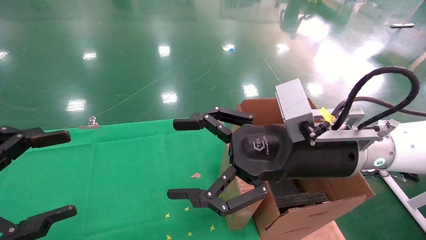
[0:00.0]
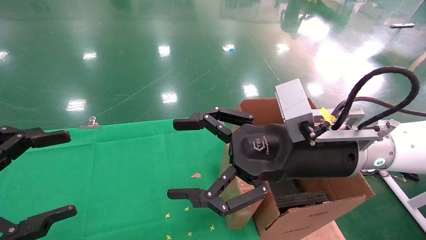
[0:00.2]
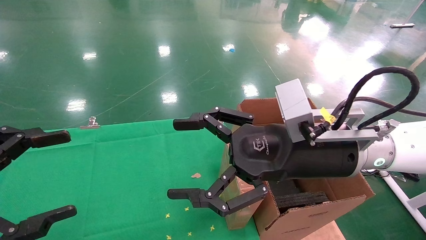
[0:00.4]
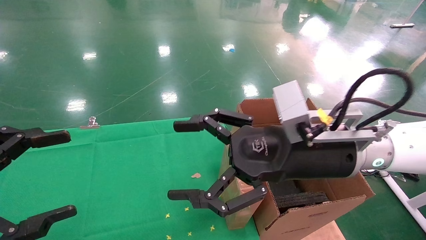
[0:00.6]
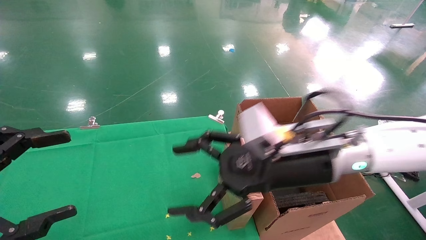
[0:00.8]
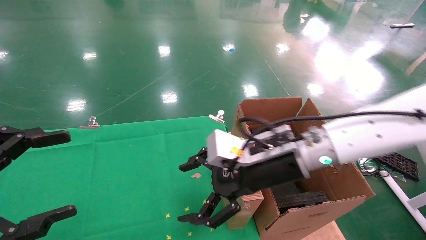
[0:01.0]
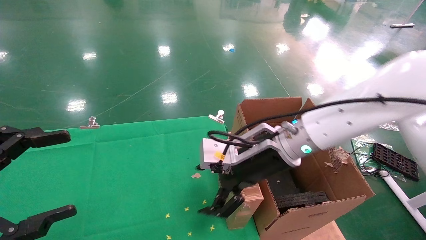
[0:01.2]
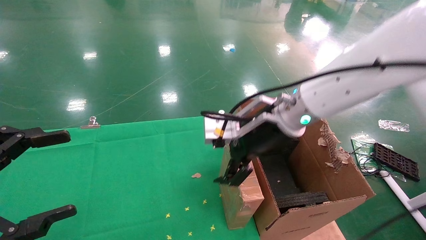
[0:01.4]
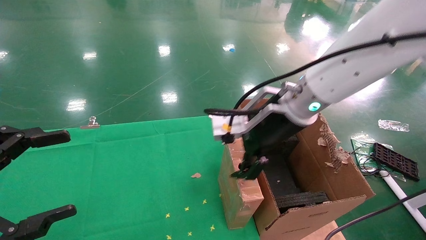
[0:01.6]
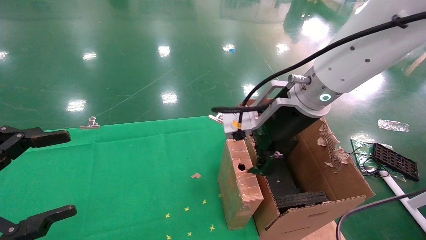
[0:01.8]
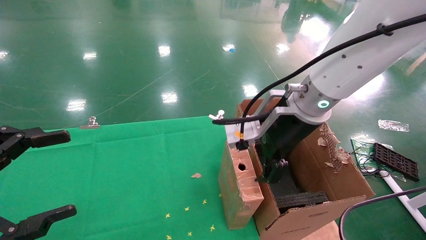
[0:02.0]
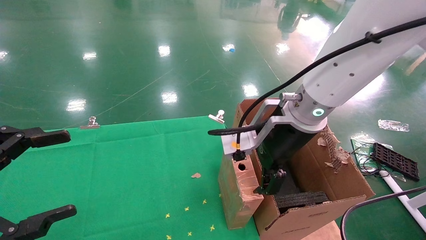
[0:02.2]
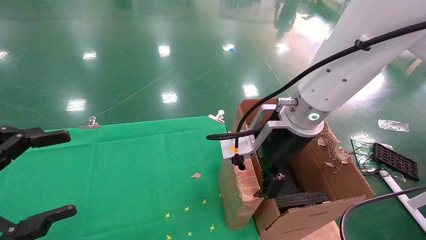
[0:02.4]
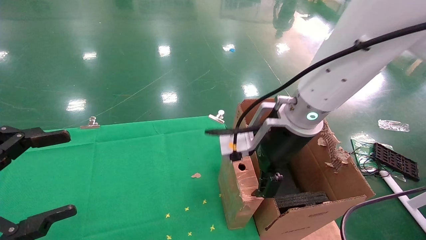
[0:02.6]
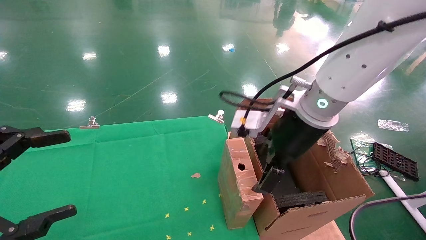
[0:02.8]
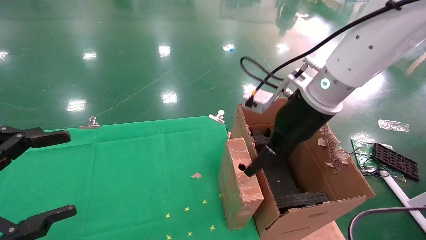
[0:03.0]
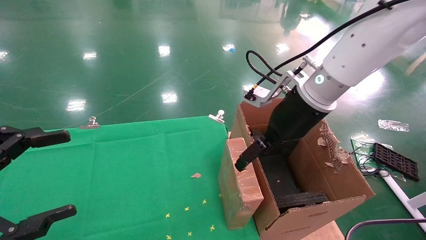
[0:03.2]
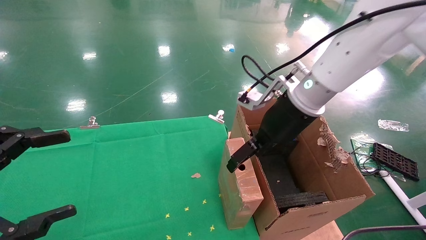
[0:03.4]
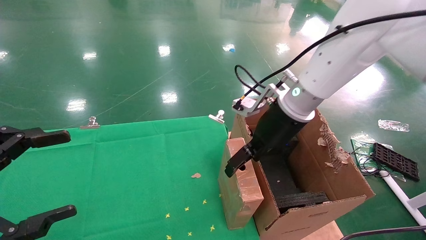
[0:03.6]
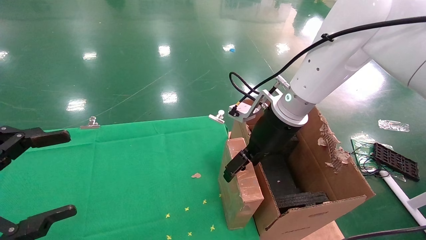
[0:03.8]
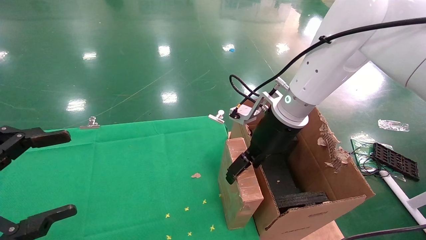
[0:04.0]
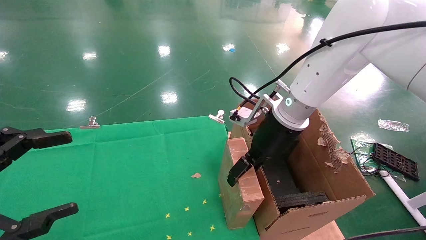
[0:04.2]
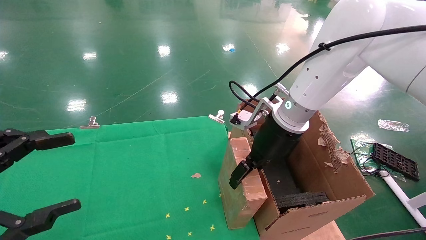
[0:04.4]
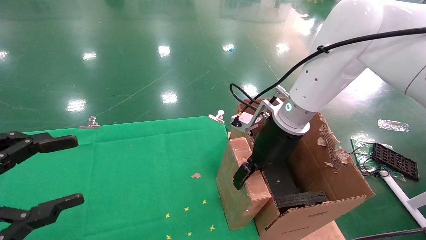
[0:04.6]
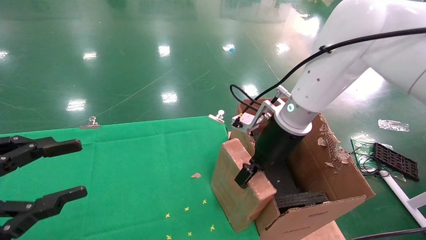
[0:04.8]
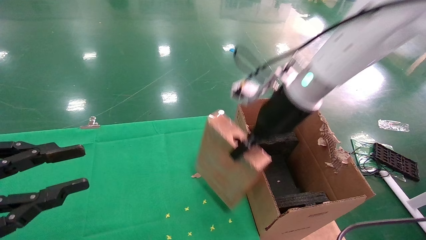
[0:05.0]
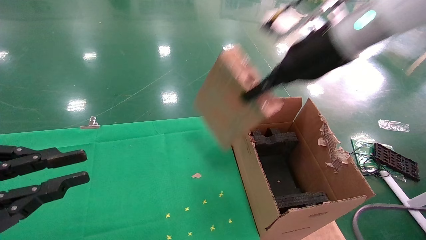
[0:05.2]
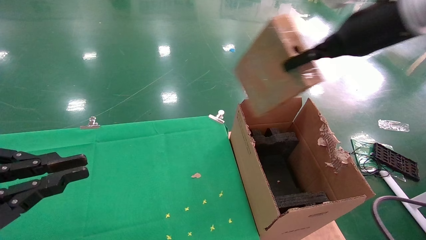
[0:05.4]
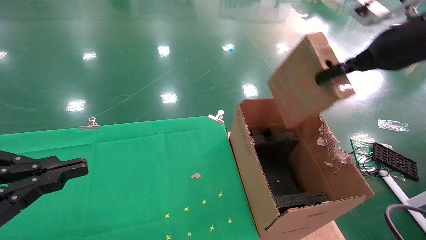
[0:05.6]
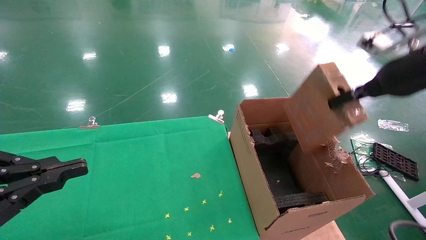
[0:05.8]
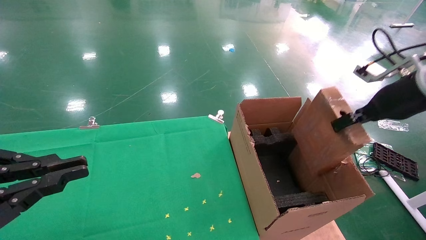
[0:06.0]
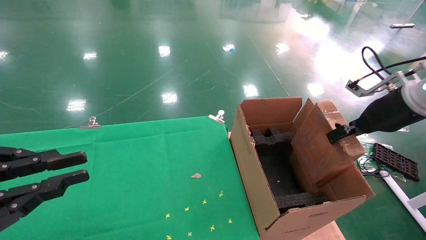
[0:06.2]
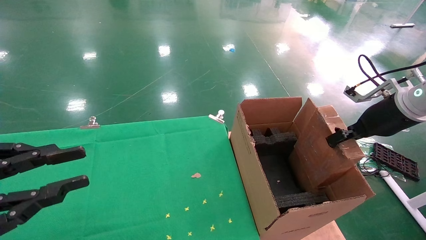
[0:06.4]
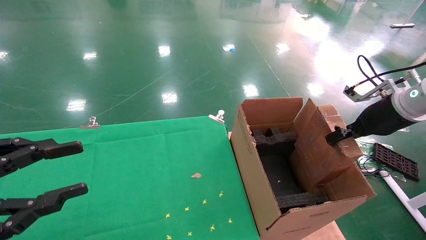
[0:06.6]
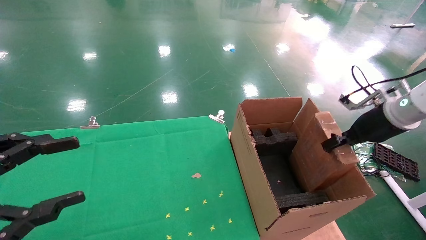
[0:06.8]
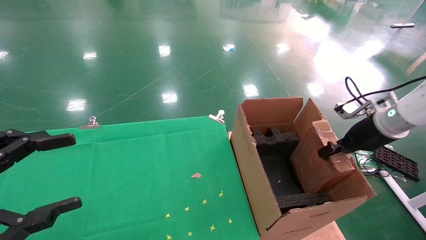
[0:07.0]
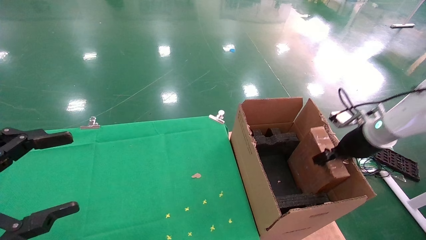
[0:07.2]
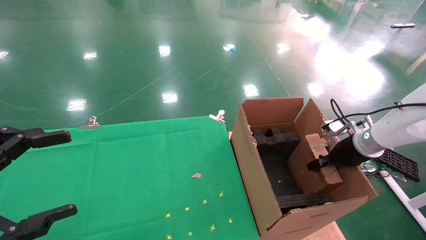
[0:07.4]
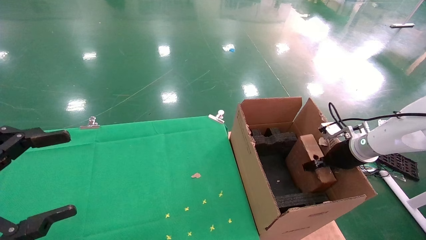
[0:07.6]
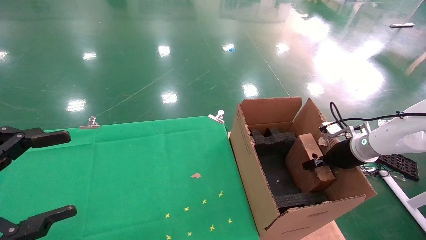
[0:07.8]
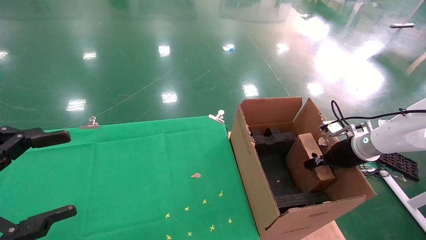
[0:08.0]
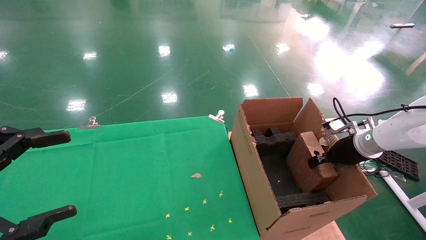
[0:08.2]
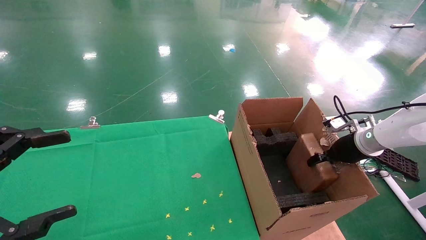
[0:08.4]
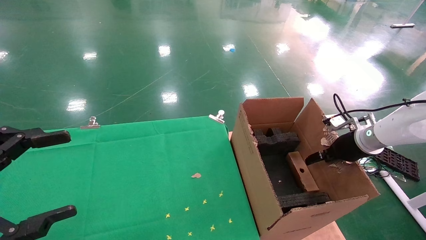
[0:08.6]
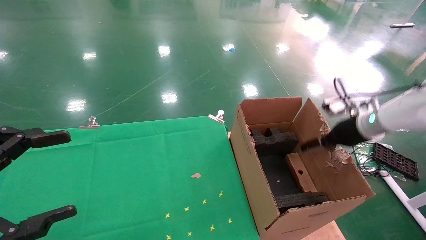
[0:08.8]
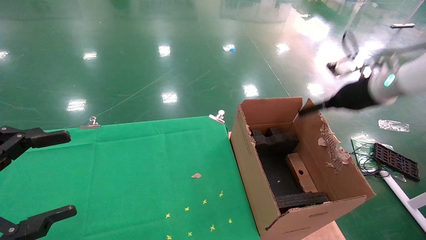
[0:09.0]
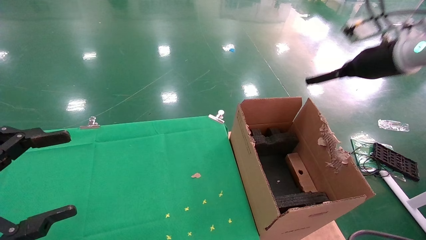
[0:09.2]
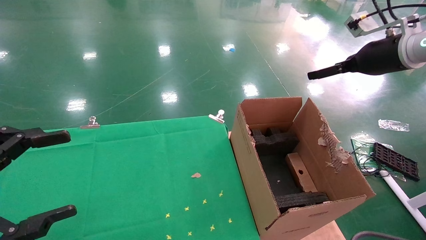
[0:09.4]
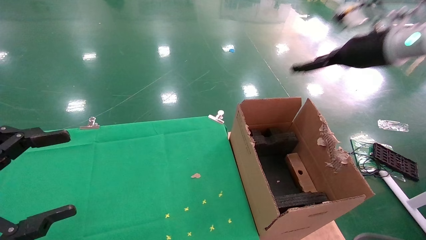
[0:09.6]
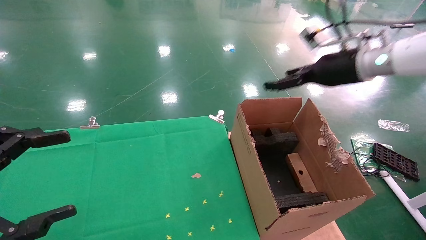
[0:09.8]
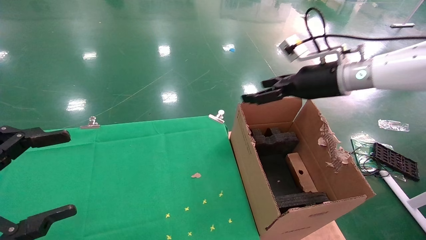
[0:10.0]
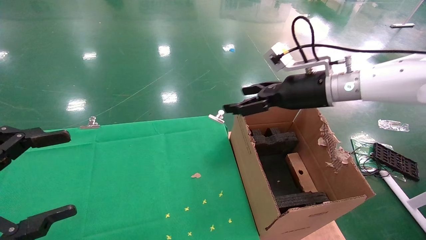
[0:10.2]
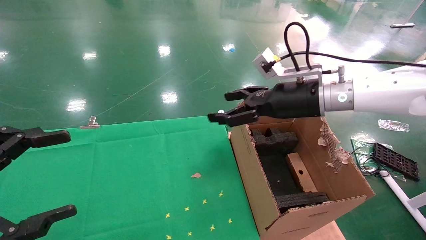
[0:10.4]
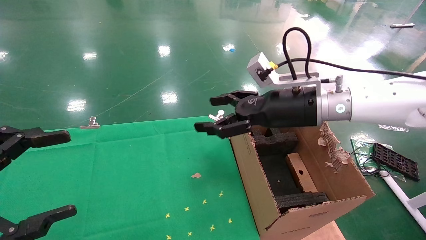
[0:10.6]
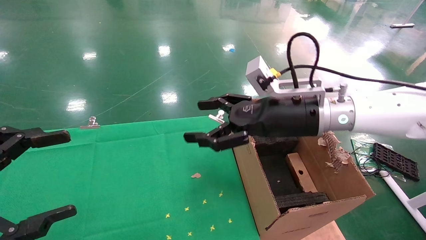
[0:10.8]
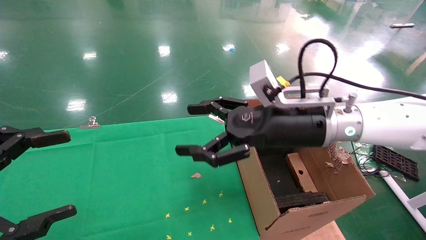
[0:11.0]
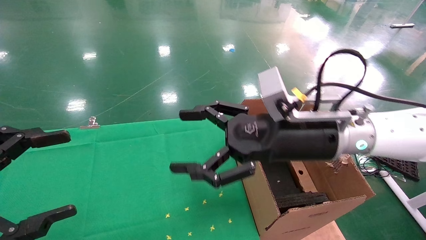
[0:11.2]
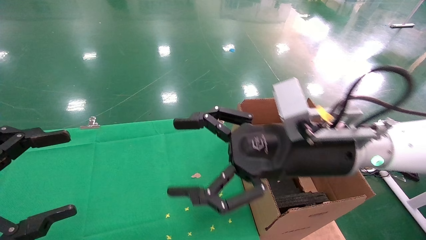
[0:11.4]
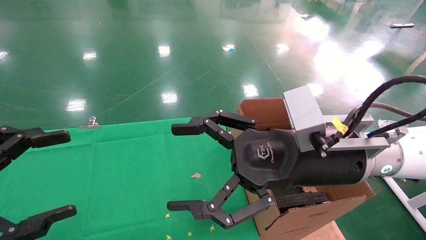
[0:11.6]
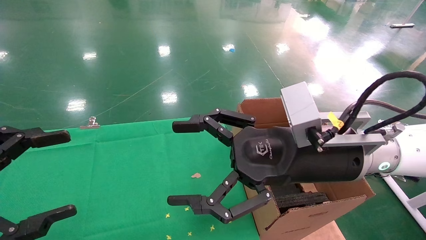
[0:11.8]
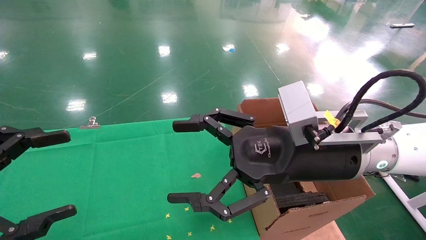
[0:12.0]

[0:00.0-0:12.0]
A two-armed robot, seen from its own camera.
Task of the whole recording: using a robotic arm to pick up a cardboard box and palace it the carton.
Step, 0:01.0 to 0:04.8: Pick up the mouse and the power cord paper box.
Step, 0:05.0 to 0:09.4: Place the mouse and the power cord paper box into the container.
0:00.0 to 0:01.6: The right gripper travels forward by approximately 10 cm.
0:03.0 to 0:04.4: The right gripper travels downward by roughly 5 cm.
0:04.4 to 0:06.0: The left gripper closes its fingers. The right gripper shifts approximately 25 cm to the right, and closes up.
0:06.0 to 0:07.6: The left gripper opens, while the right gripper travels downward and forward by approximately 20 cm.
0:07.6 to 0:09.0: The right gripper moves upward, about 15 cm, and opens.
0:09.0 to 0:10.4: The right gripper travels to the left by about 20 cm.
0:10.4 to 0:12.0: The right gripper heads backward and to the left, covering approximately 15 cm.

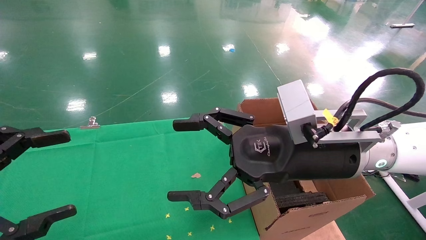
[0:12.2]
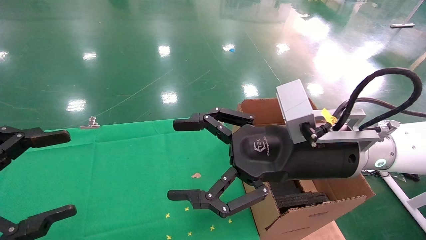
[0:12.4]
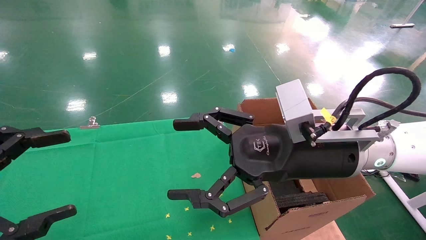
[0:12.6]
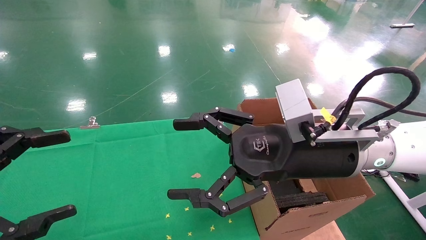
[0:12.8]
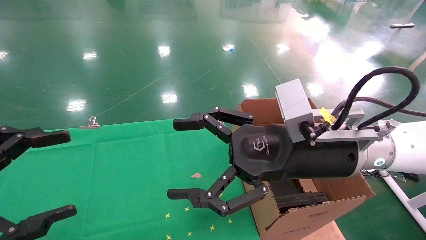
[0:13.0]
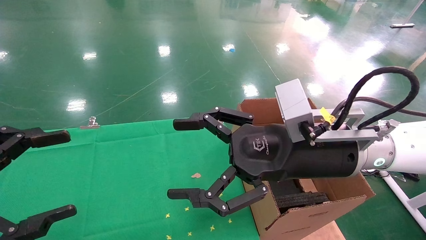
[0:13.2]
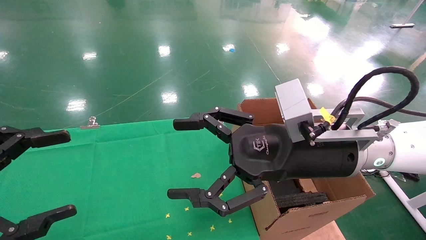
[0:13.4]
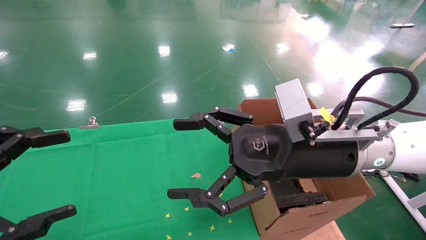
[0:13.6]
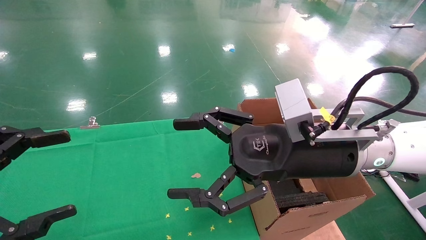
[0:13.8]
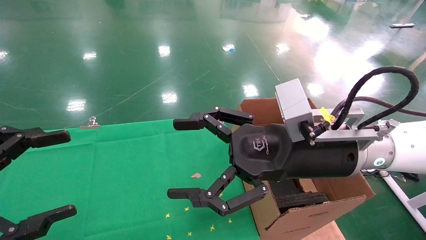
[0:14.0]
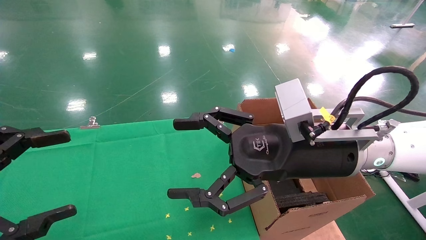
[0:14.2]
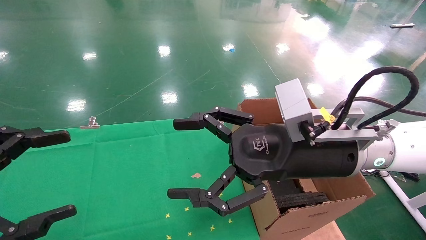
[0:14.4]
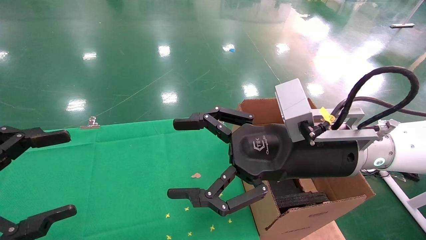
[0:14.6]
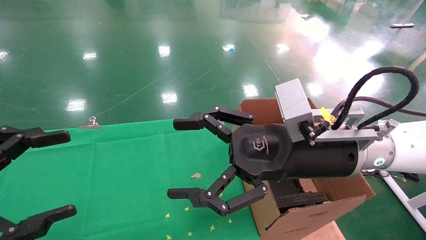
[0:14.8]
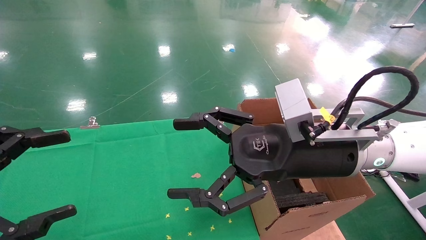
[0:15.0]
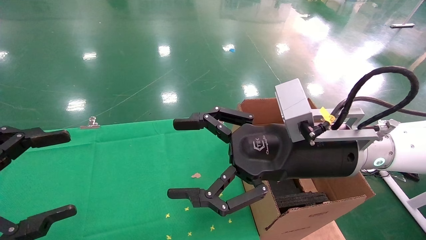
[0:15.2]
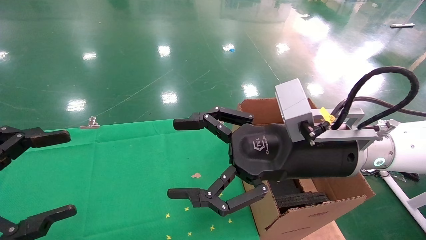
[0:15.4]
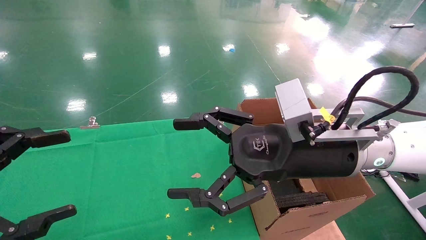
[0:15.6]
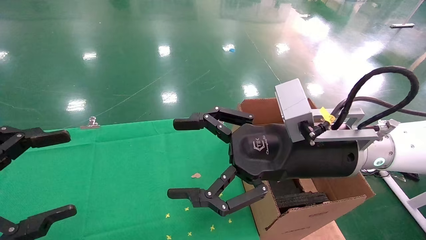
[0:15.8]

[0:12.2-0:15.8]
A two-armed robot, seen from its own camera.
Task of the whole recording: using a robotic arm to pick up a cardboard box and palace it the carton.
0:12.2 to 0:15.8: Neither gripper changes place.
